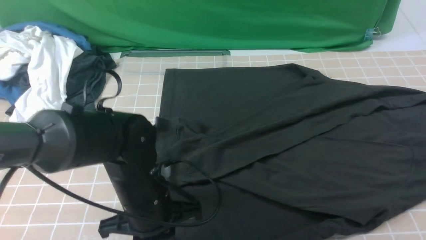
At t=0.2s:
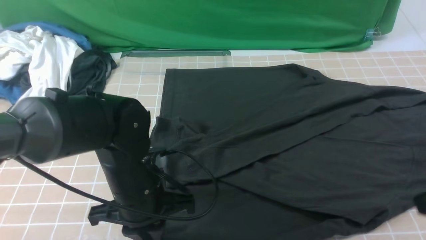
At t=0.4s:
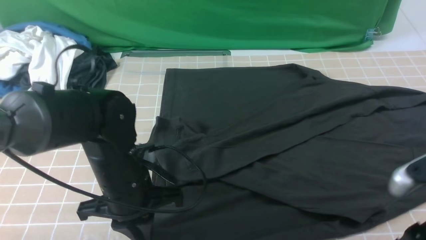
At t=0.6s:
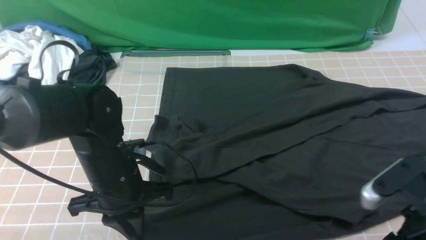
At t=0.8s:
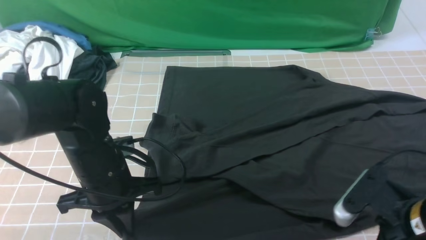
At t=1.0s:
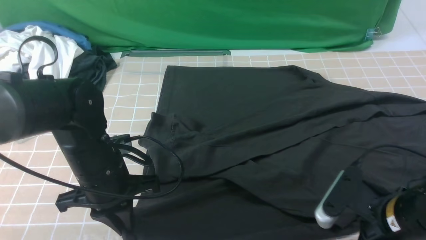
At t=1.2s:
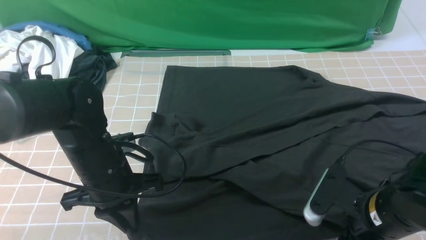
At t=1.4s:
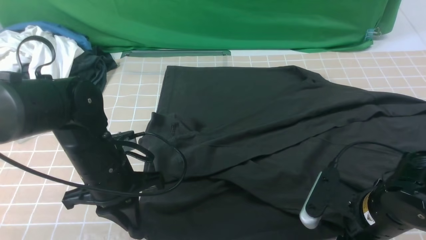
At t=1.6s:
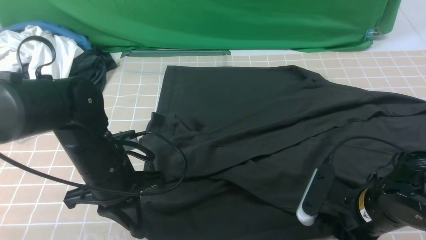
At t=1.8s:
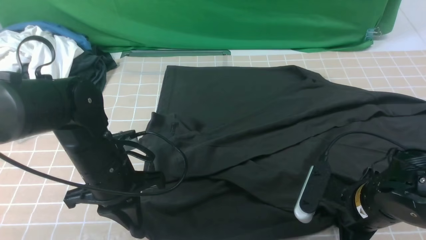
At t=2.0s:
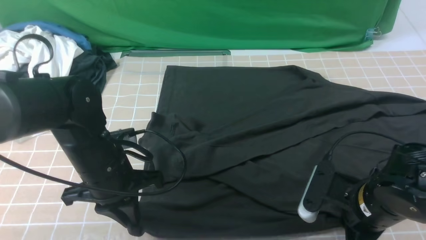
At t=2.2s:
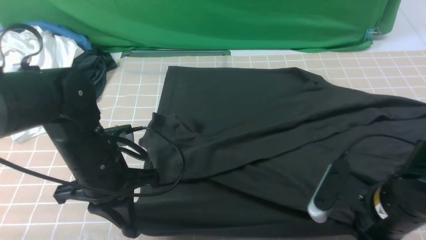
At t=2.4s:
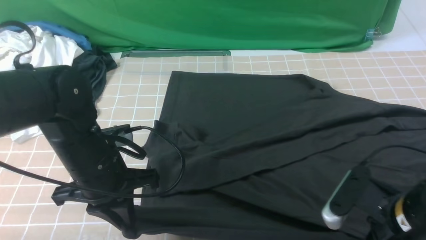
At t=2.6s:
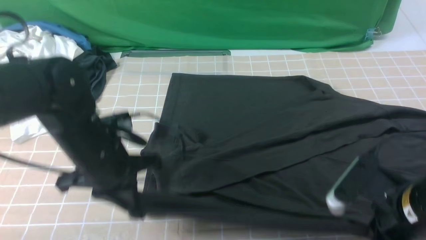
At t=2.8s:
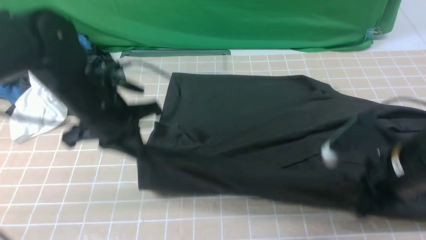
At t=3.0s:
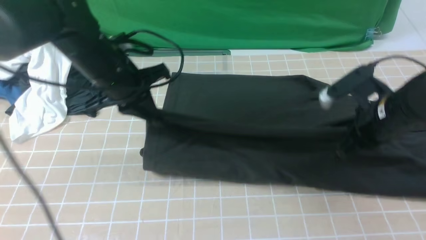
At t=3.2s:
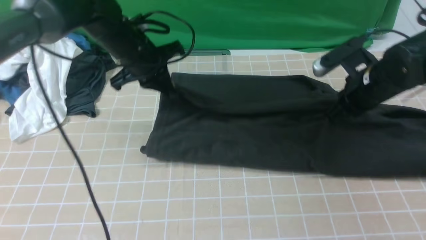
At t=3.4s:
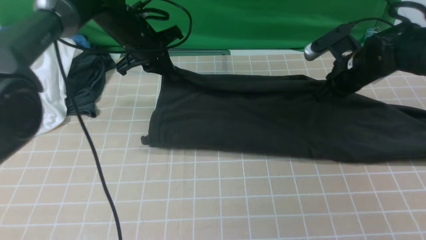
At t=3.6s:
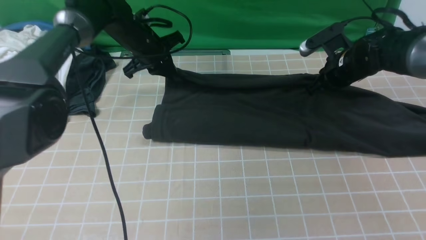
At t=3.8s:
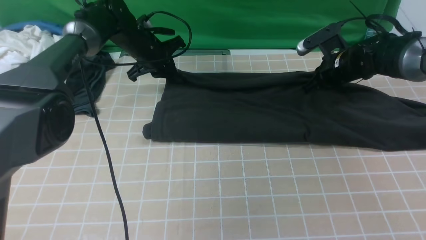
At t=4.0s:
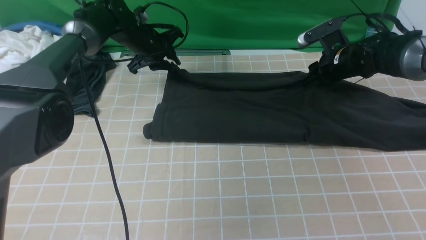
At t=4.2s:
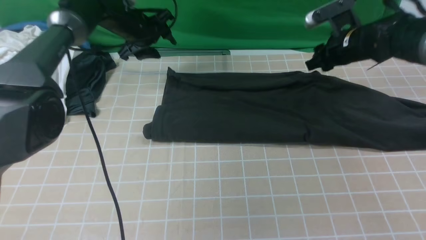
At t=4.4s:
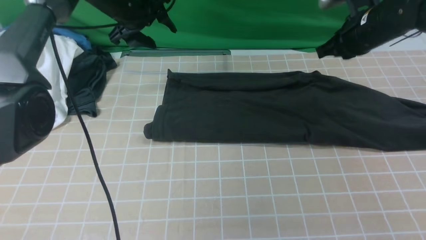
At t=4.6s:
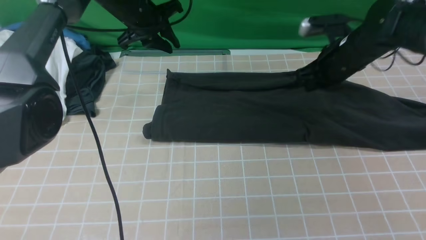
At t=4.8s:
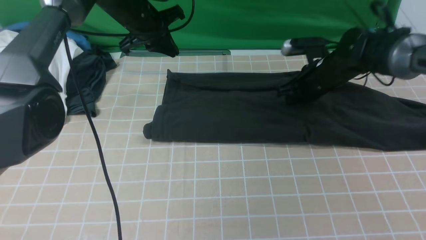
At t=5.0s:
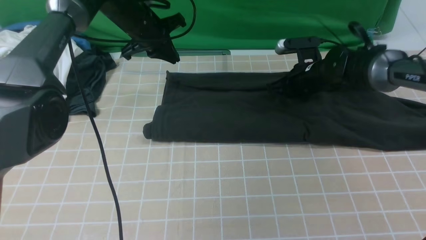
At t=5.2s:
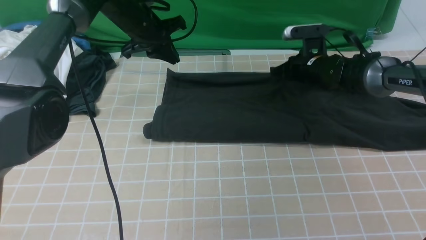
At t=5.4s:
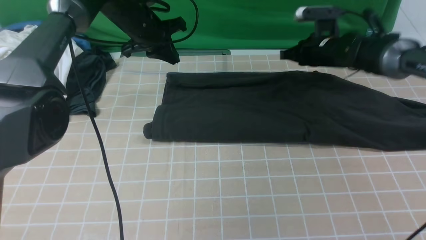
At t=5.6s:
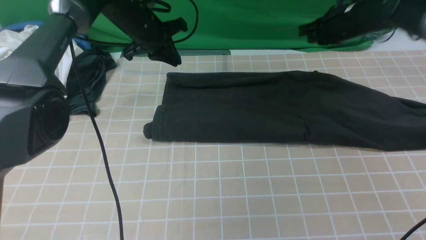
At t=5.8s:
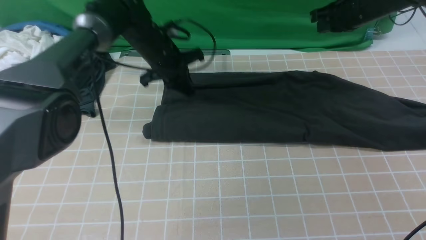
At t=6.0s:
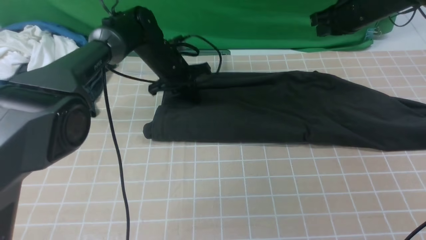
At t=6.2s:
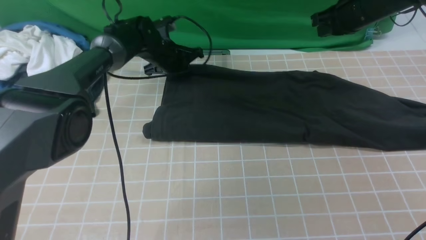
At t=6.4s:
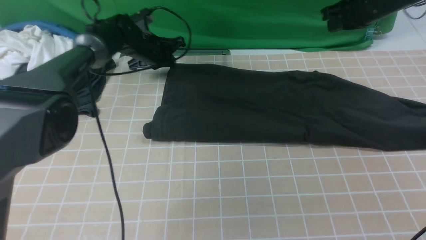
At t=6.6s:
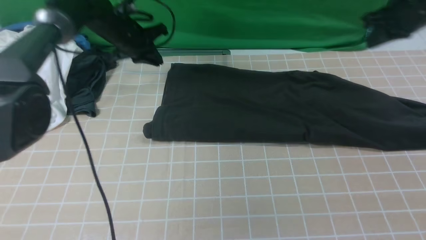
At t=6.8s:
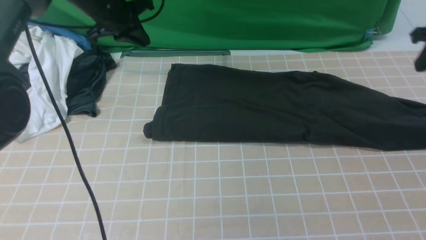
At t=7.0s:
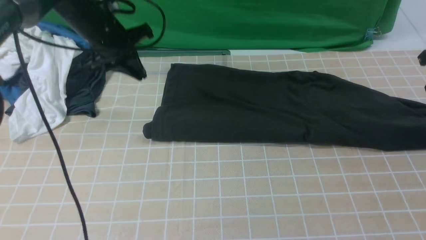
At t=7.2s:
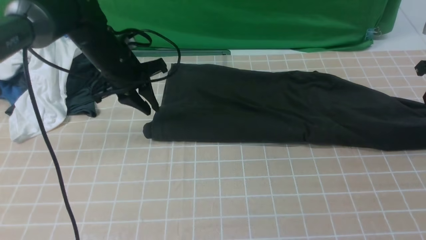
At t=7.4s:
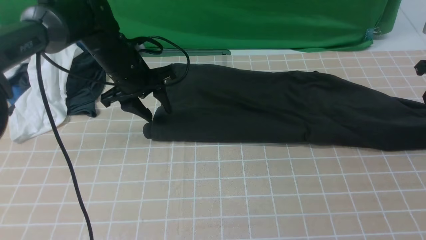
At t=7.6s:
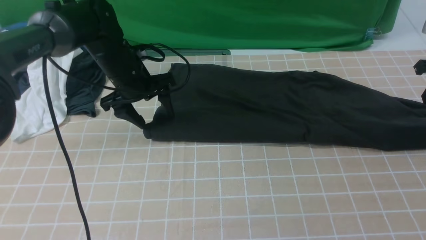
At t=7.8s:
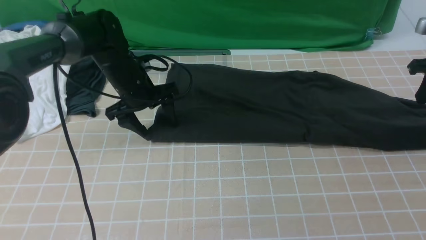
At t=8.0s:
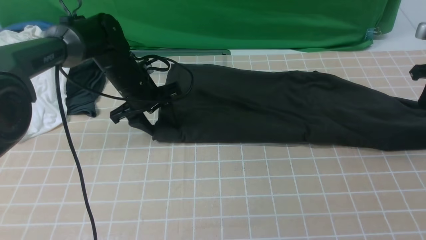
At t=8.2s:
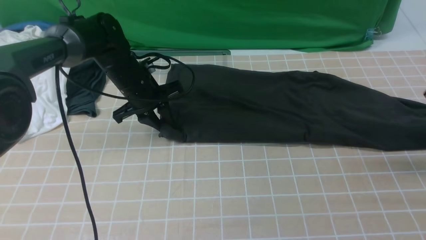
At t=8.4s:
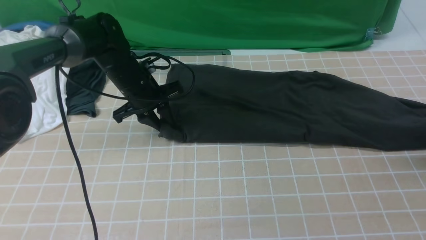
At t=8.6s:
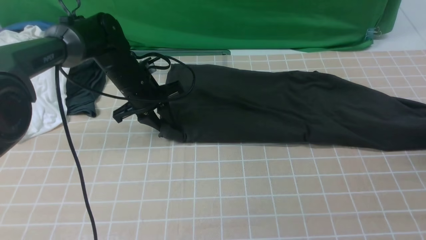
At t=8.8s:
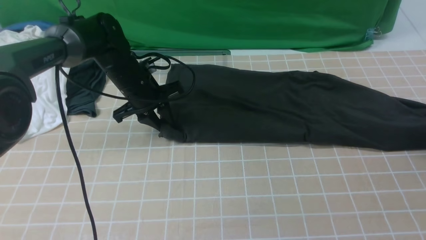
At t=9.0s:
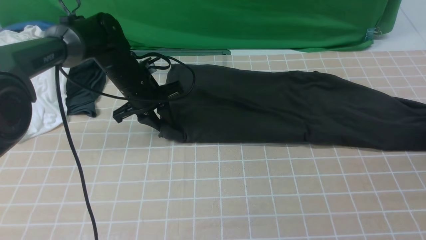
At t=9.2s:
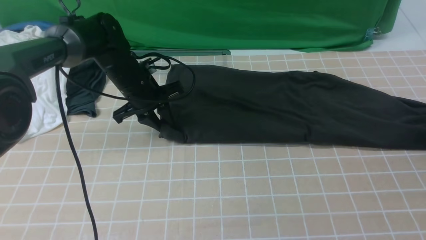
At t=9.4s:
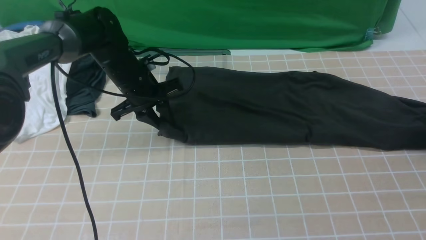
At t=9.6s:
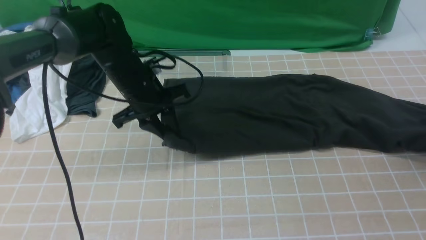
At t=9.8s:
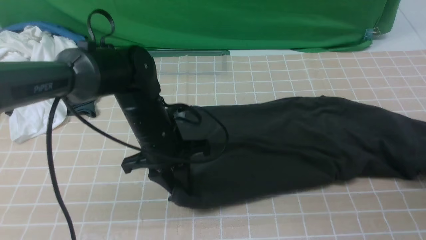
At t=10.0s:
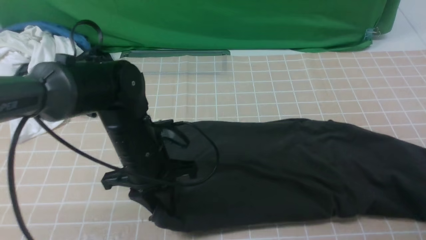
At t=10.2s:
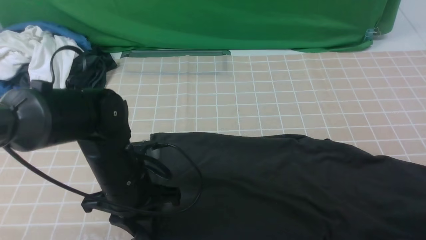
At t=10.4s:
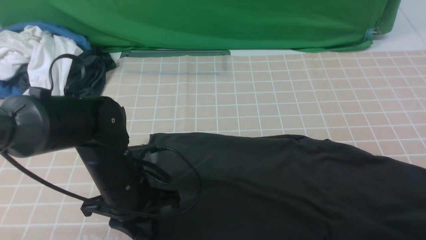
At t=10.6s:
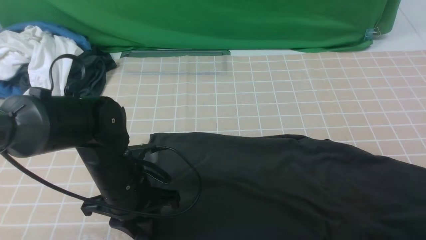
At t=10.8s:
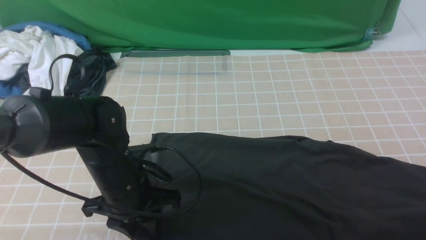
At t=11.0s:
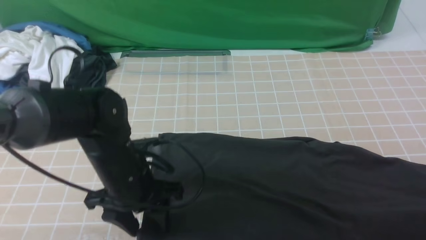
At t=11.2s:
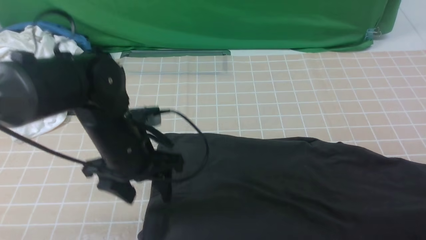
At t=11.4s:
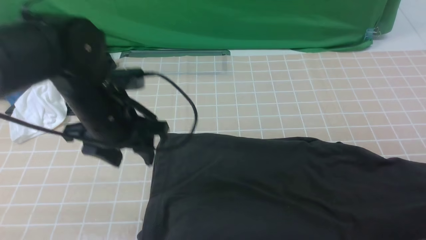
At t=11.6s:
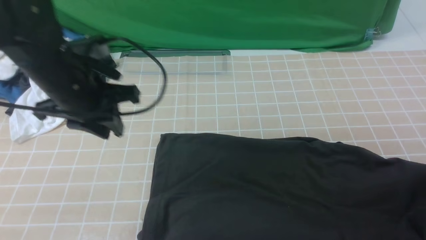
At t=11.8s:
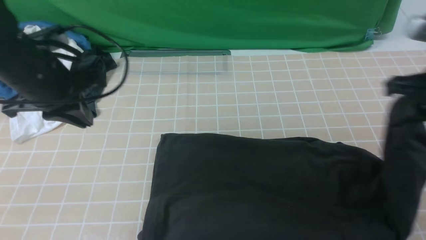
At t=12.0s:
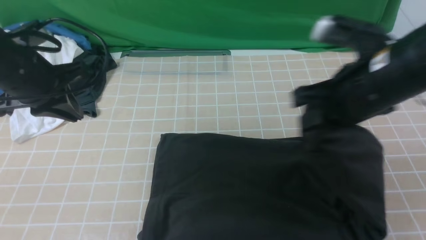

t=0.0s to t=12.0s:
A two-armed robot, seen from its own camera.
Step, t=0.0s to t=1.8s: use both arms simultaneously to clamp the lower edge of the clothing fabric.
Step, t=2.0s to t=4.0s: use both arms to drag the lower edge of the fabric forward and fold it over the upper edge.
Step, t=4.4s to t=9.2s: use the right arm to clamp the right edge of the fabric.
t=0.0s to t=1.6s: The right gripper shifts roughly 15 cm downward and to the left, and opens its fingers; the left gripper shifts some 5 cm to the left.
t=1.6s to t=3.0s: Both grippers travel together forward and upward, approximately 15 cm. The right gripper closes its fingers.
t=3.0s to t=4.4s: The two grippers go about 15 cm forward. The right gripper opens, then closes once more. The left gripper opens its fingers.
t=4.4s to t=6.0s: The left gripper heads downward and to the right, covering approximately 10 cm, and closes its fingers.
t=6.0s to t=7.6s: The left gripper is displaced backward by approximately 10 cm, and opens. The right gripper travels to the right and backward by roughly 20 cm.
t=7.6s to t=9.0s: The left gripper closes. Meanwhile the right gripper is displaced to the right and downward by some 10 cm, and opens its fingers.
t=9.0s to t=10.4s: Both grippers travel together backward, roughly 20 cm. The right gripper closes up.
t=10.4s to t=12.0s: The right gripper travels to the left by approximately 30 cm; the left gripper goes approximately 20 cm upward, to the left and forward, and opens, then closes once more.

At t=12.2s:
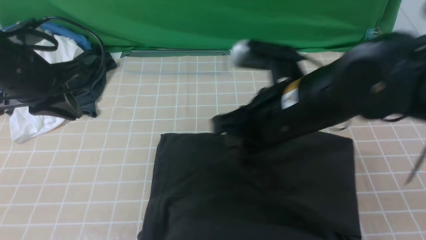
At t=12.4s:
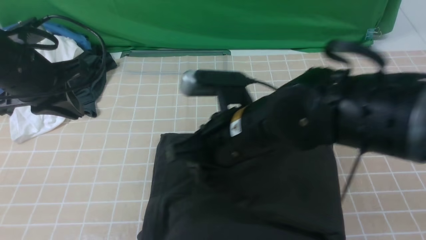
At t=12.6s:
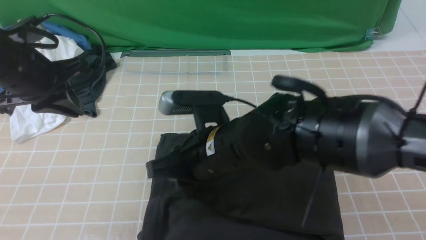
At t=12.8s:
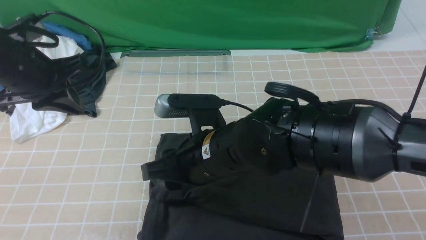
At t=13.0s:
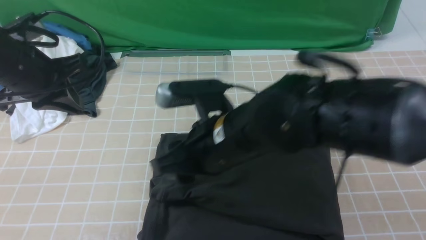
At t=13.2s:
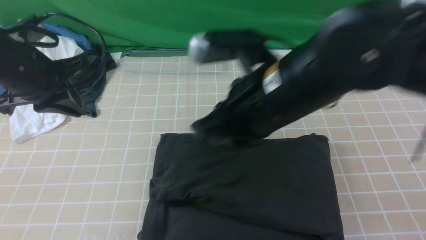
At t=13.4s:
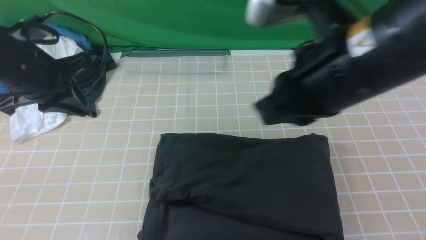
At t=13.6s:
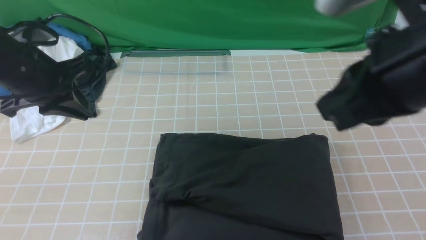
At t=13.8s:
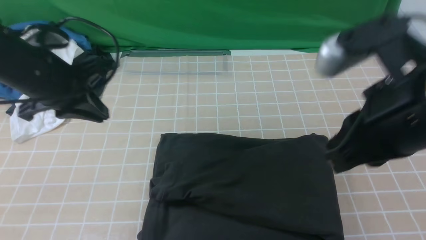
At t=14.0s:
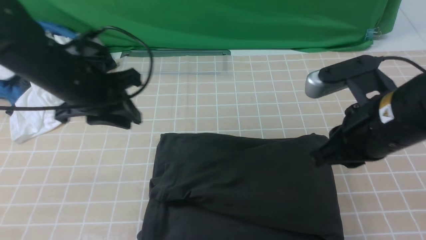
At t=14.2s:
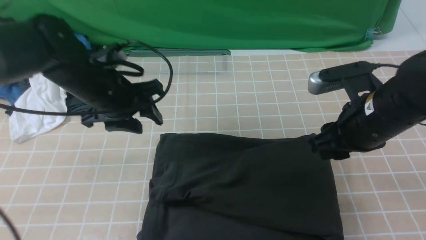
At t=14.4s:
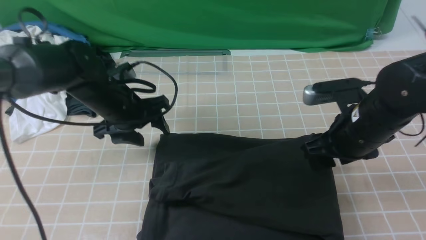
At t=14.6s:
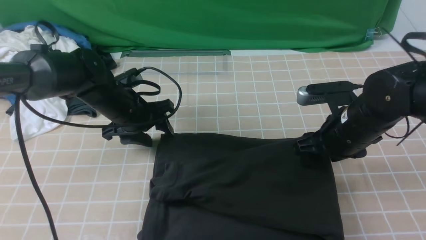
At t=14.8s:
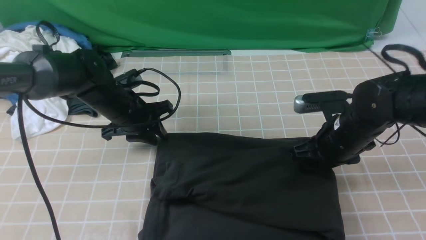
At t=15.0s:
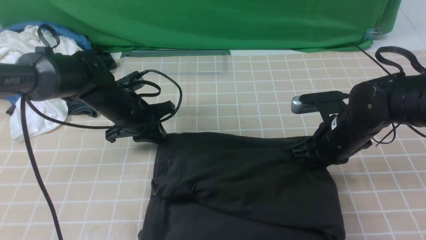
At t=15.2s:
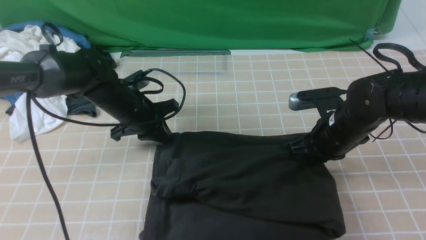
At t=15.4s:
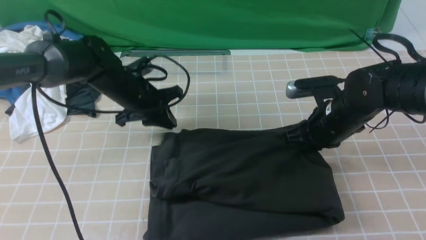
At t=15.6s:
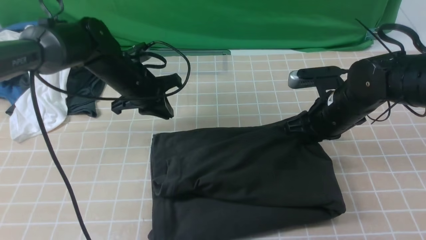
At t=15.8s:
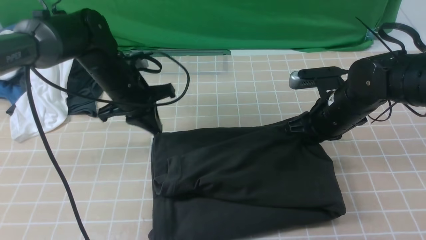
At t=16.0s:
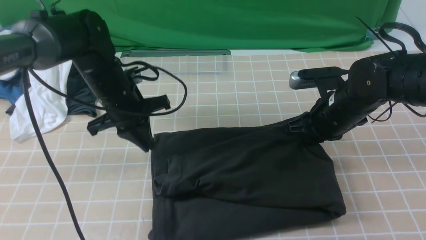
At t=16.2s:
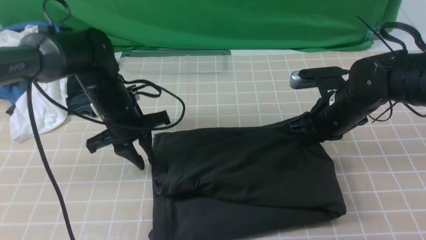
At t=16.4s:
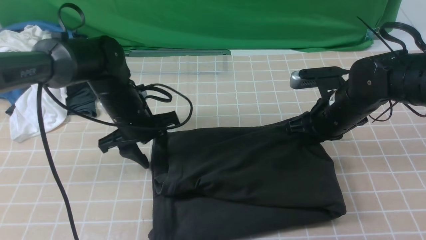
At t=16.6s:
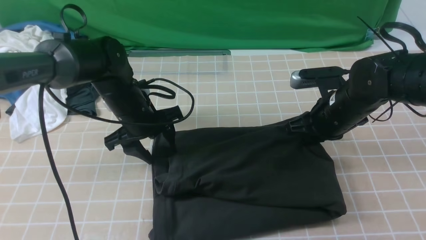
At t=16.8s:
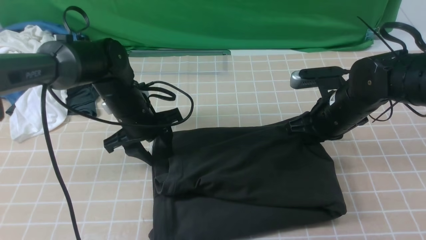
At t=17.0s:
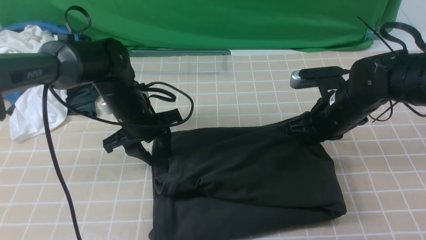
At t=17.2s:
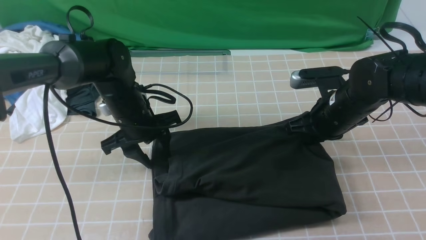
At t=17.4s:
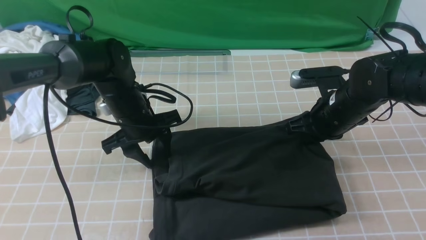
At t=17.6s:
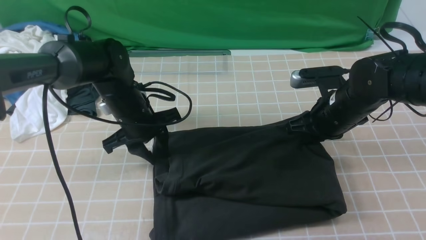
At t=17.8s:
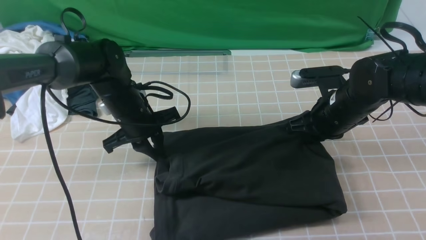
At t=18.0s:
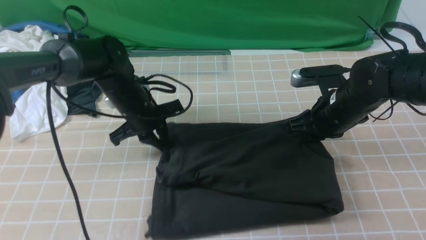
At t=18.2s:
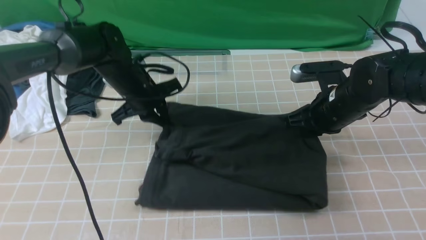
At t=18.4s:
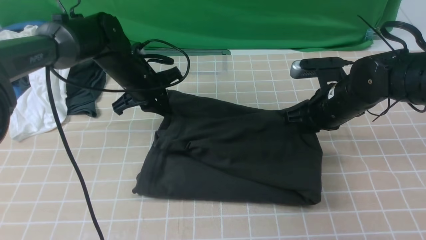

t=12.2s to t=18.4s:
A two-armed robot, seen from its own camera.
t=12.2s to t=13.8s: The right gripper heads to the right, upward and backward, covering some 10 cm, and opens and closes again.
t=13.8s to t=15.4s: The left gripper shifts some 15 cm downward, forward and to the right, and opens, then closes again; the right gripper heads downward and forward, covering roughly 20 cm, and opens, then closes again.
t=15.4s to t=16.8s: The left gripper opens up.
t=16.8s to t=18.4s: The left gripper goes about 5 cm forward, and closes up.
